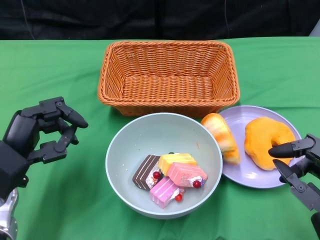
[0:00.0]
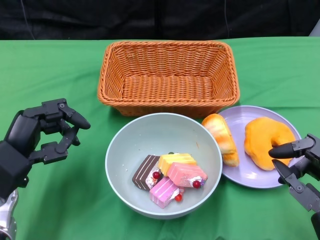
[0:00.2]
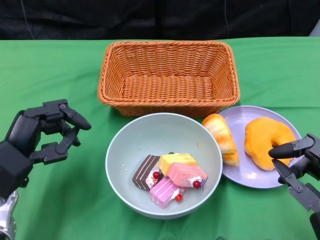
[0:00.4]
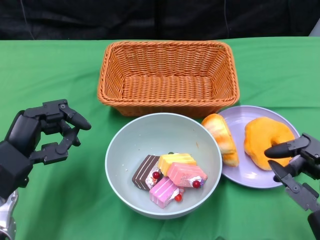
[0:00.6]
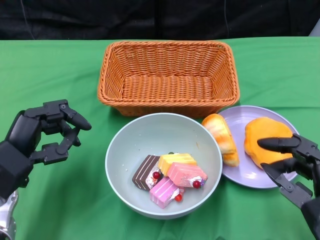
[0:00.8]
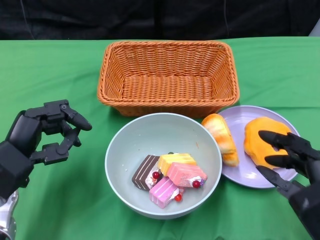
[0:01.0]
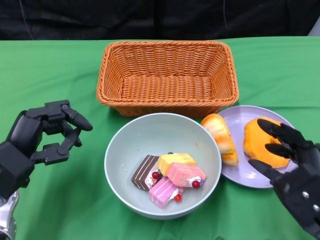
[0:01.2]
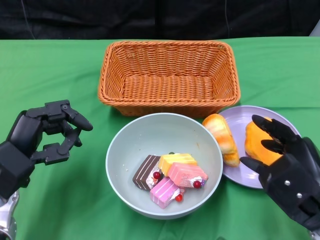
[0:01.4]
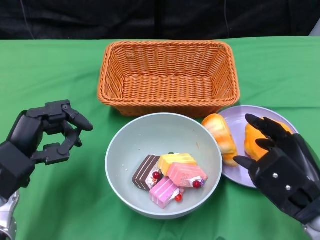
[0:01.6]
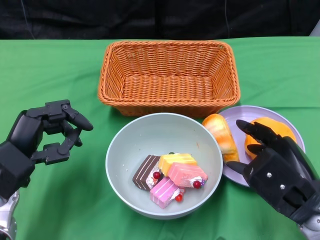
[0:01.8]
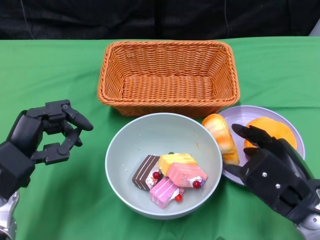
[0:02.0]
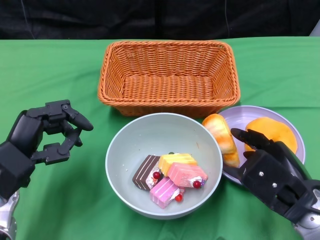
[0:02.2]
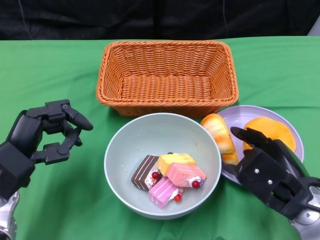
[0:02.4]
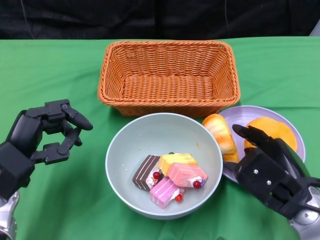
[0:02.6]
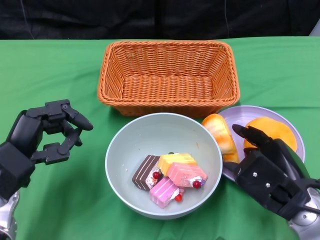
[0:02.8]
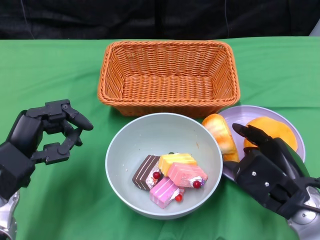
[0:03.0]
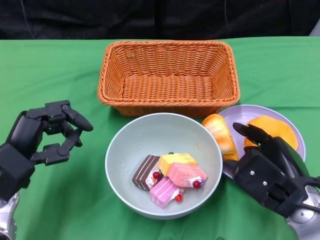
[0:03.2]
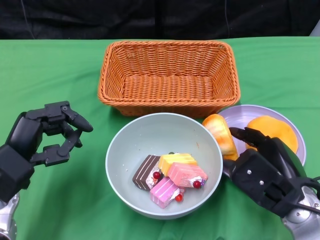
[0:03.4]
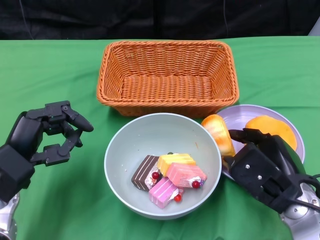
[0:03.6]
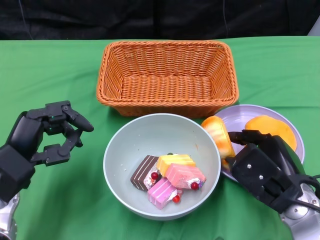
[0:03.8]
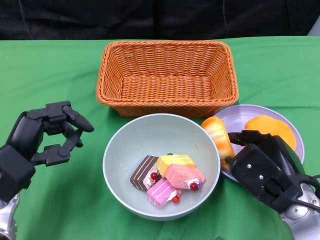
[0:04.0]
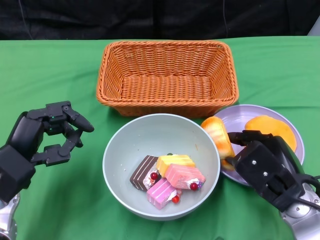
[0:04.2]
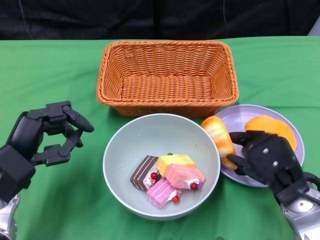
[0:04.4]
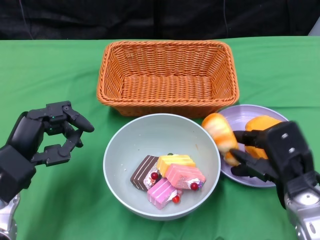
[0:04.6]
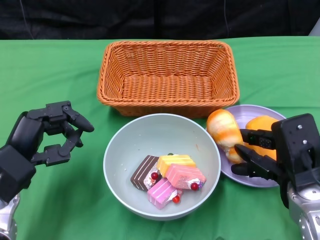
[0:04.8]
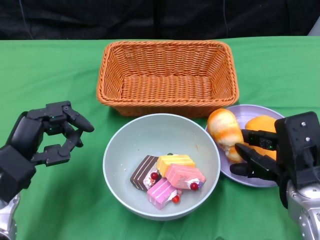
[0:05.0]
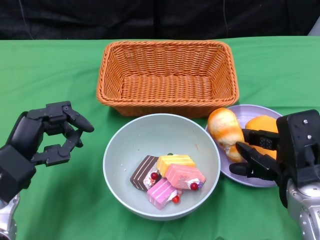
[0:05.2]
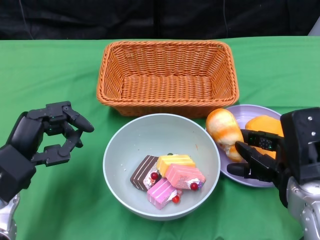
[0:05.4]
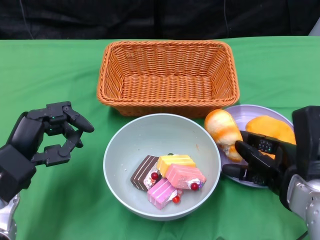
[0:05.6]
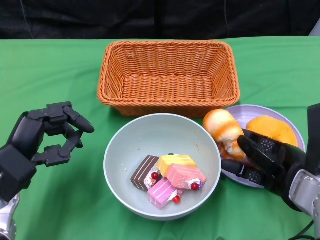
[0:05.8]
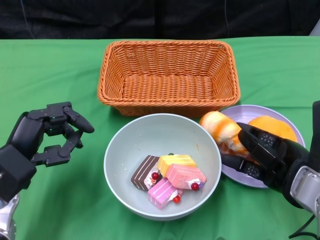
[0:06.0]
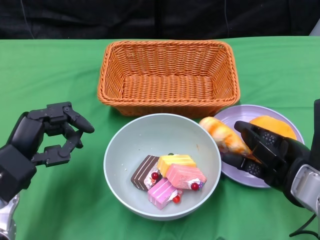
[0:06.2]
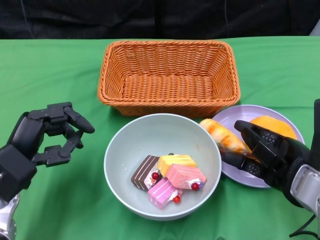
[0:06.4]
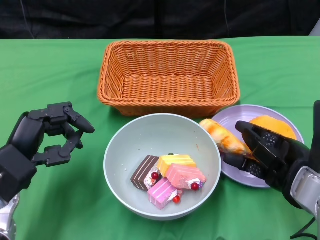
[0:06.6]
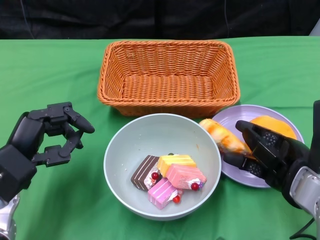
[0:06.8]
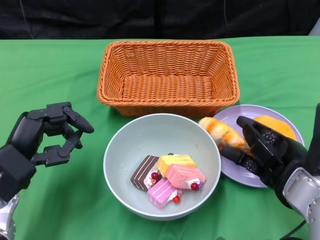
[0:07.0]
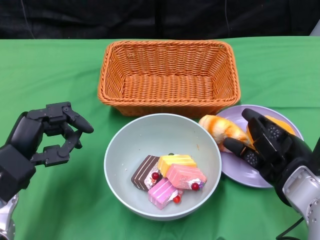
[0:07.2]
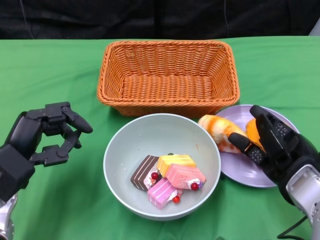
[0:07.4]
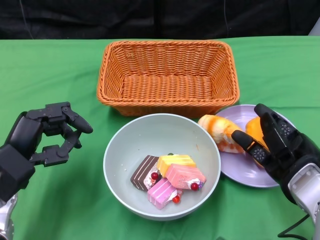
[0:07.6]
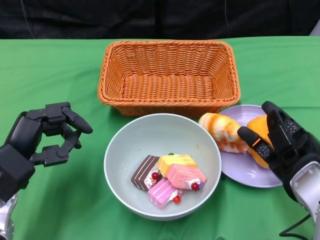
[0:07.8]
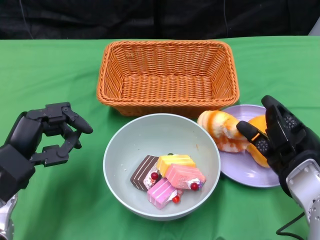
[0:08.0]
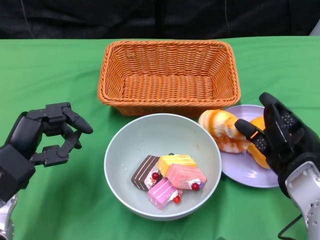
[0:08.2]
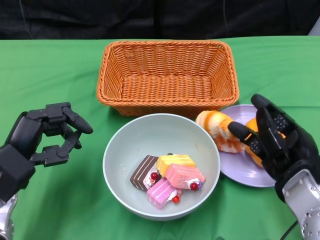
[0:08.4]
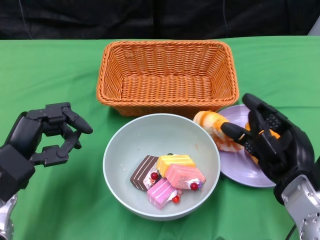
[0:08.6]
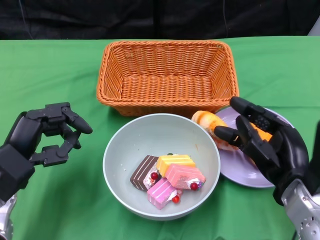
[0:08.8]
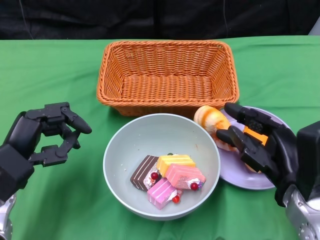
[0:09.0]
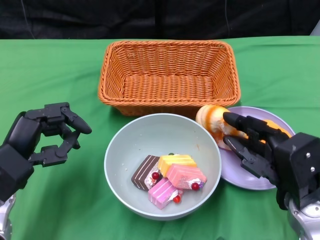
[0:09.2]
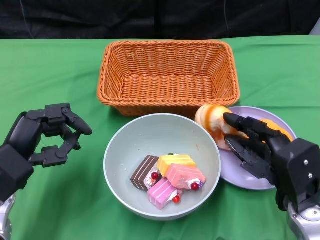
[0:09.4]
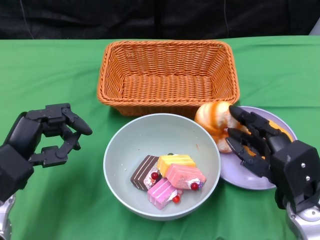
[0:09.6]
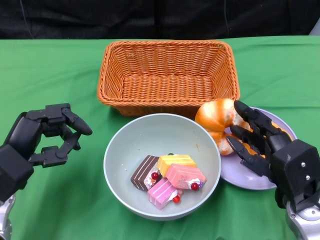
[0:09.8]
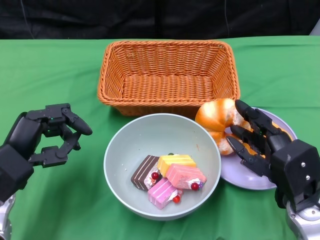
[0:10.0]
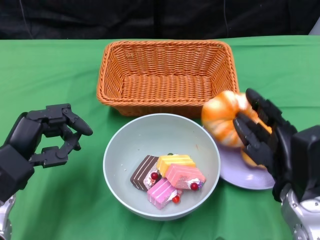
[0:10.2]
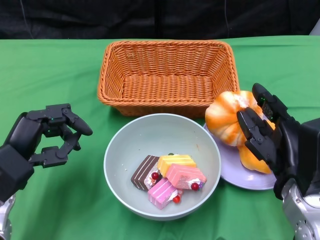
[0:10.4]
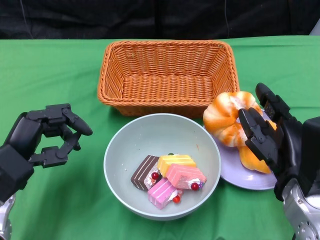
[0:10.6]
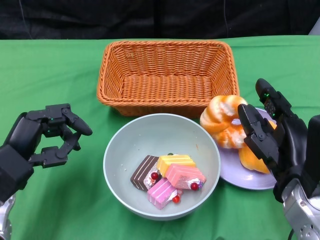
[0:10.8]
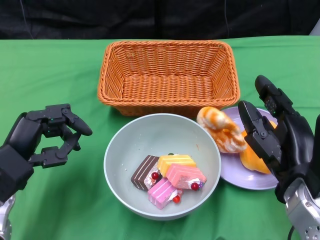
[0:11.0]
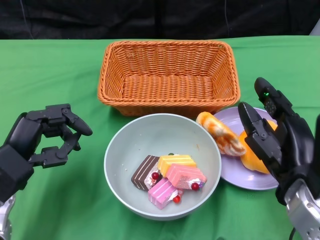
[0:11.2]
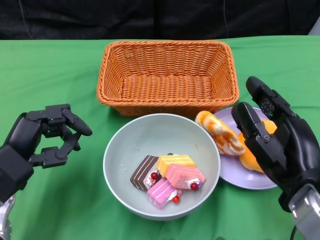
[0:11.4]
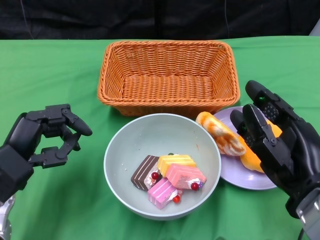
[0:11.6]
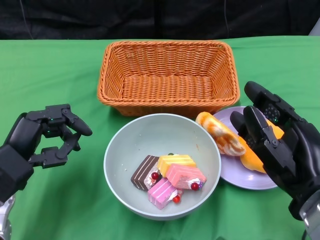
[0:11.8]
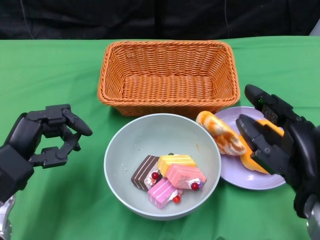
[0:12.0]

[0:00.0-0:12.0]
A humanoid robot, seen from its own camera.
0:00.0 to 0:01.6: The right hand moves forward, some 5 cm.
0:01.6 to 0:04.4: The hands move only a little.
0:09.0 to 0:10.4: There are only small adjustments of the hands.
0:10.4 to 0:12.0: The right hand goes approximately 10 cm upward and backward.

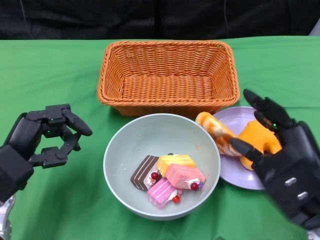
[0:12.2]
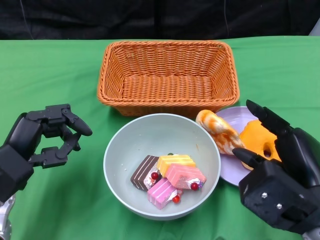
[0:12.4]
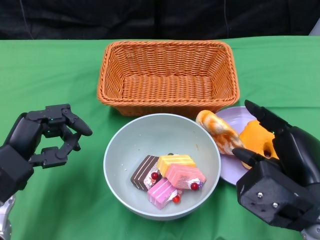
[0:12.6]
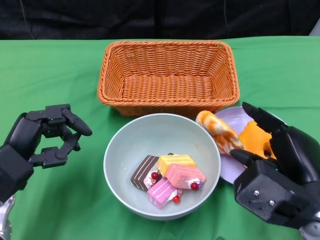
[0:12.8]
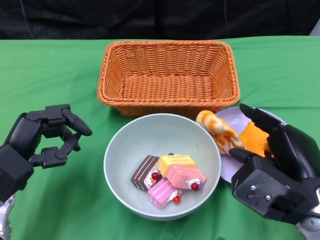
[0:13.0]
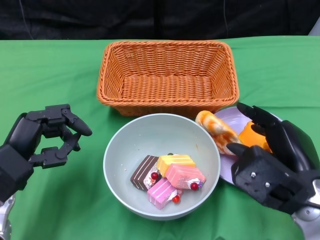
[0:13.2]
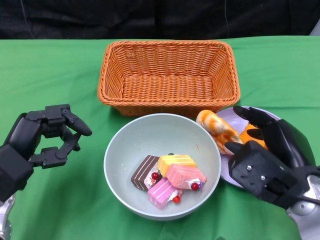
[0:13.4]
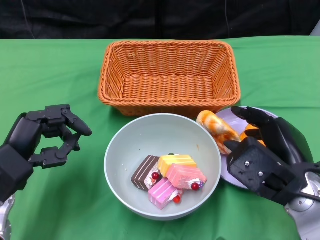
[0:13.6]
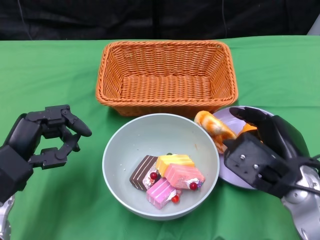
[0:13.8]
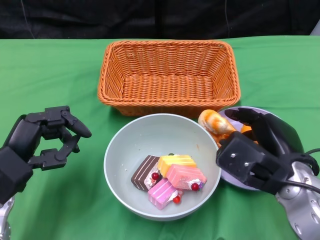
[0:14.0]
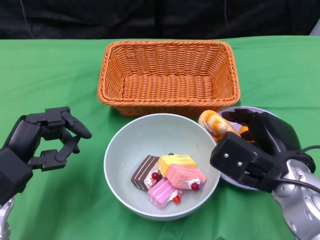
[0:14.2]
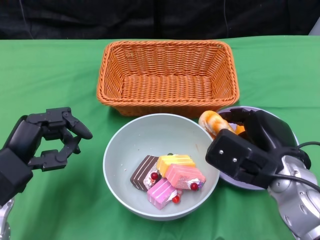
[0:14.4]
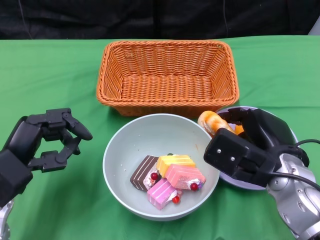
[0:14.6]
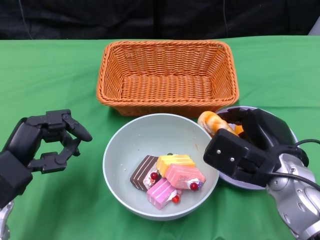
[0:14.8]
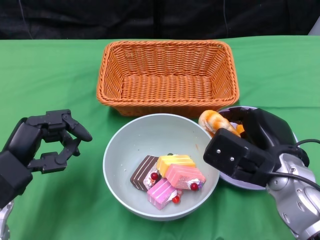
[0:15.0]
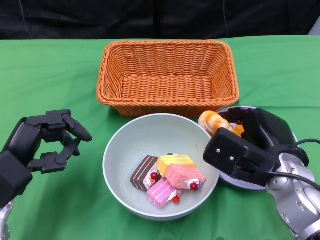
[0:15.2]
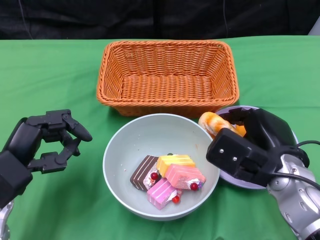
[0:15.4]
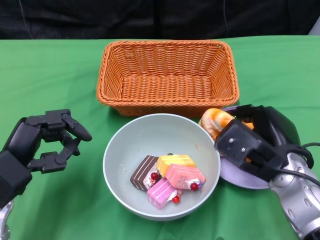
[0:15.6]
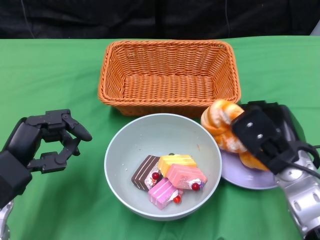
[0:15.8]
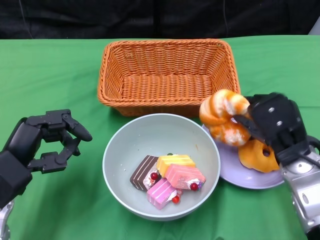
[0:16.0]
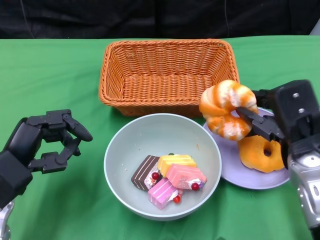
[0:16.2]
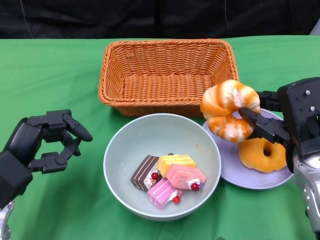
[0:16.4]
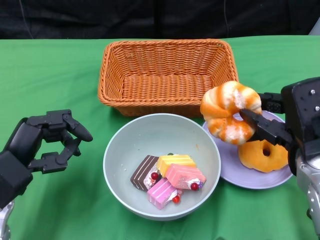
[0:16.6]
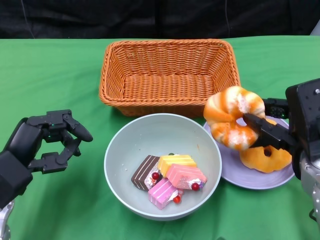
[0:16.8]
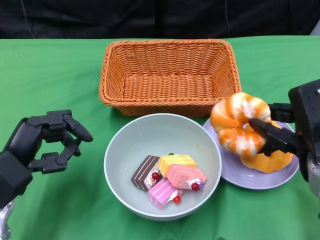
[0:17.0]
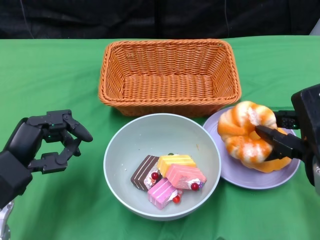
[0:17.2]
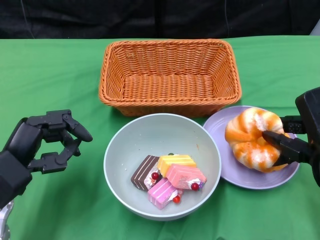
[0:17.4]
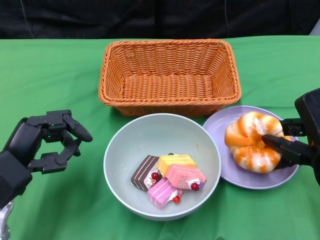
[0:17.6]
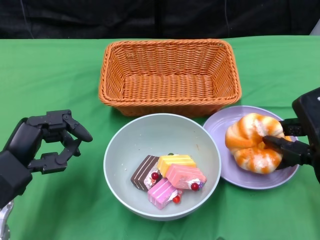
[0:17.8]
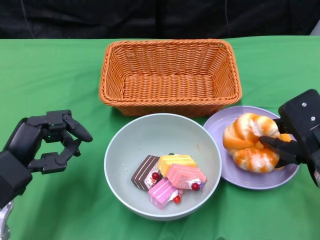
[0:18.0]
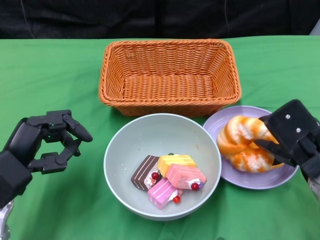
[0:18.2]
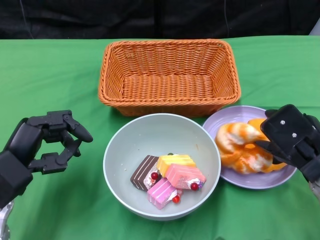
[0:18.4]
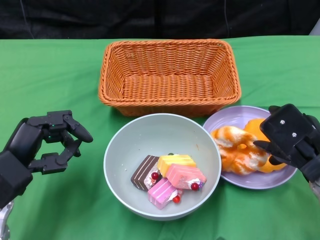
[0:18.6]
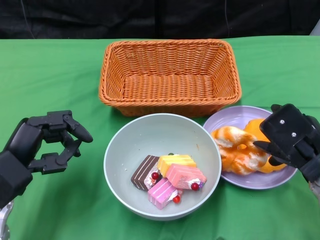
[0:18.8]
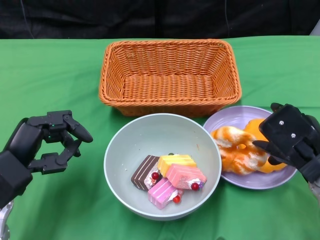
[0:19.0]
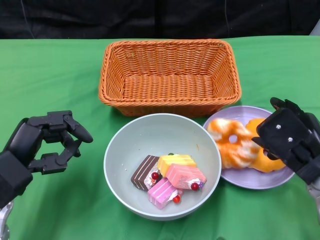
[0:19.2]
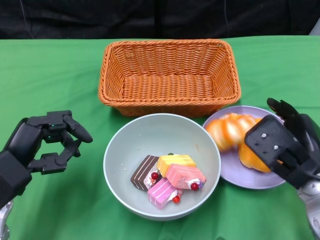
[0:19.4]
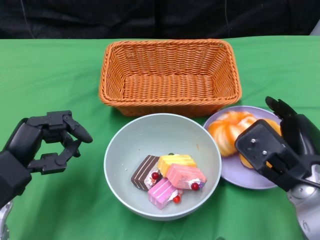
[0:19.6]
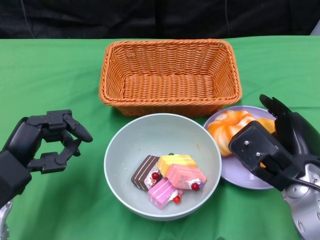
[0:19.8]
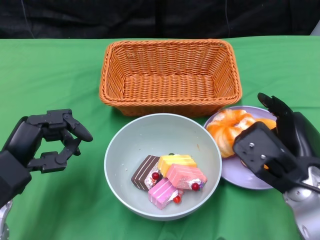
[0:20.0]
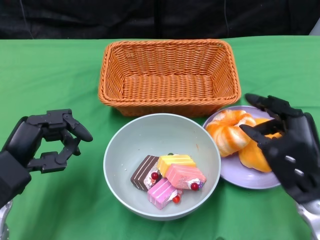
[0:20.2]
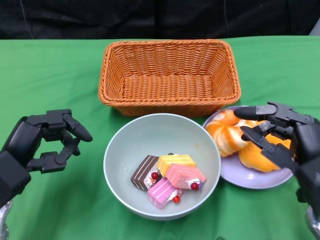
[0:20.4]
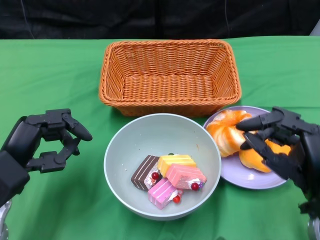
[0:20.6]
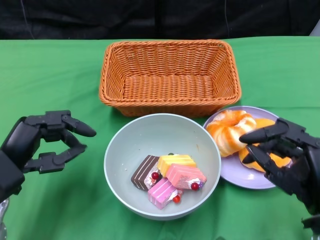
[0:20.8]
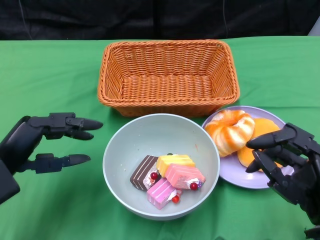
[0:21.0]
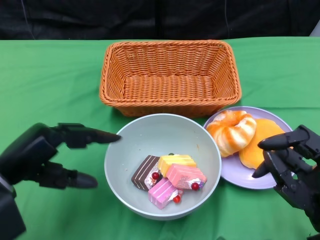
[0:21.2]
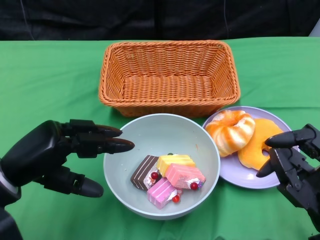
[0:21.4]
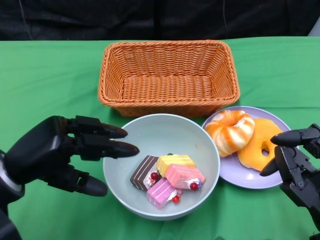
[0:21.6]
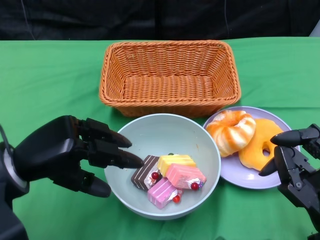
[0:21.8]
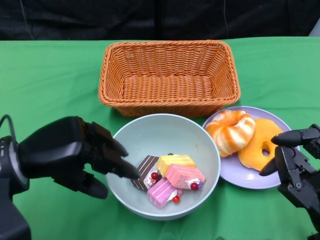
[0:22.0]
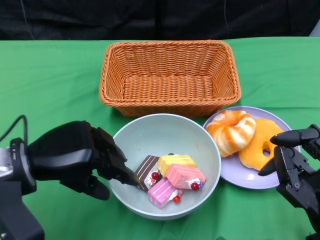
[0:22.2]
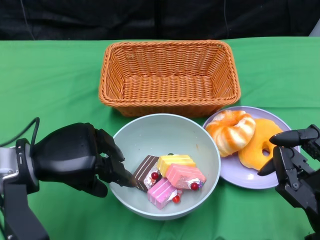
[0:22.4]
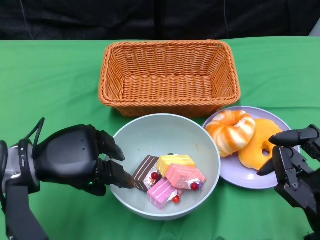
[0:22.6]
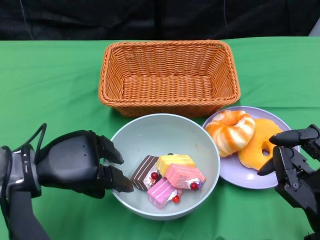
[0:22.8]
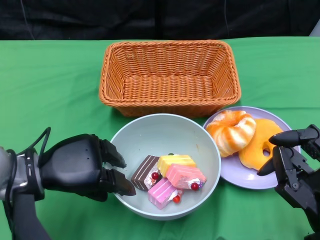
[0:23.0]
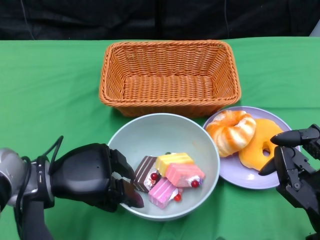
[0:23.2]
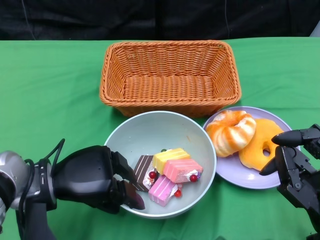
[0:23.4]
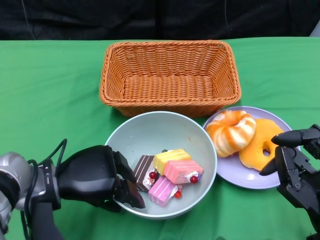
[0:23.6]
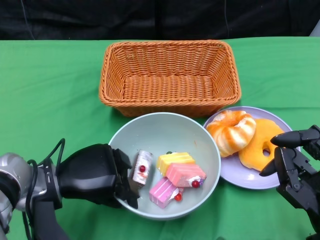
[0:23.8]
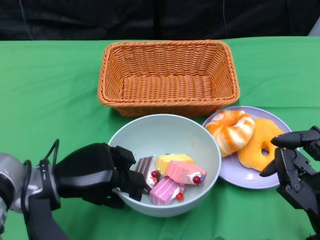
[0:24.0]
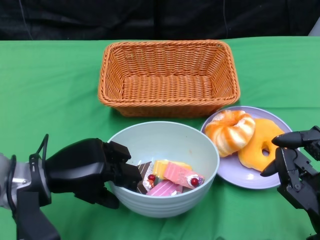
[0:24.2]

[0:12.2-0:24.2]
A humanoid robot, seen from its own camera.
Step, 0:12.2 to 0:21.0: Pick up the bread with the right gripper and place it on the plate.
0:12.2 to 0:13.8: The right hand is displaced forward by about 5 cm.
0:13.8 to 0:15.2: The hands stay close to where they were, moving slightly.
0:19.8 to 0:21.2: The right hand goes some 10 cm backward.
0:21.2 to 0:22.6: The left hand shifts by about 5 cm.
0:22.6 to 0:24.2: The hands move only a little.
